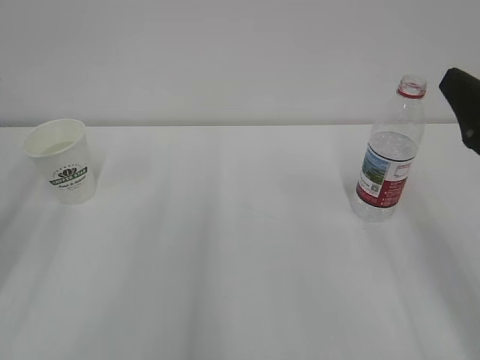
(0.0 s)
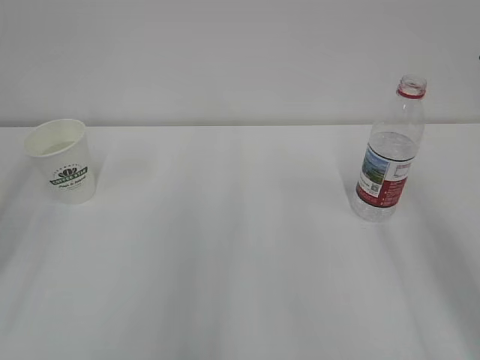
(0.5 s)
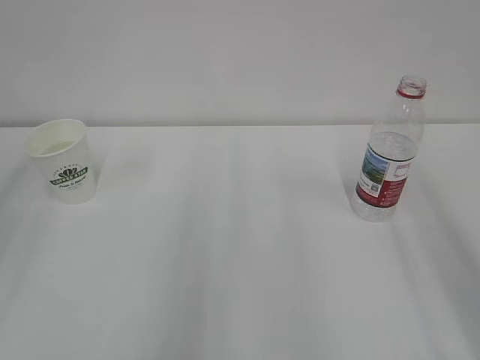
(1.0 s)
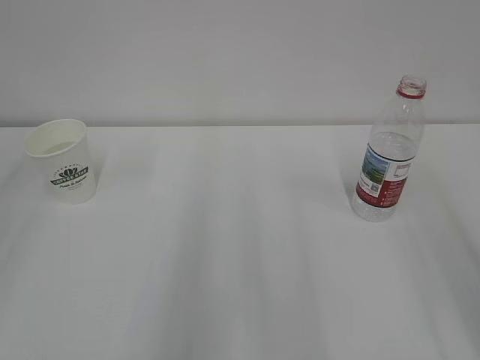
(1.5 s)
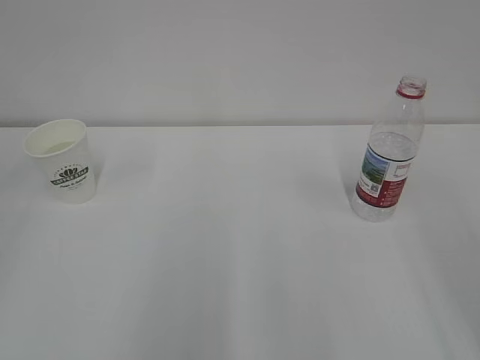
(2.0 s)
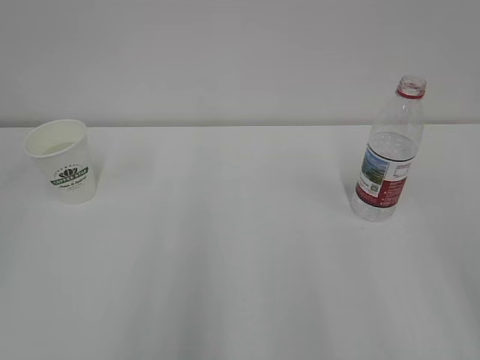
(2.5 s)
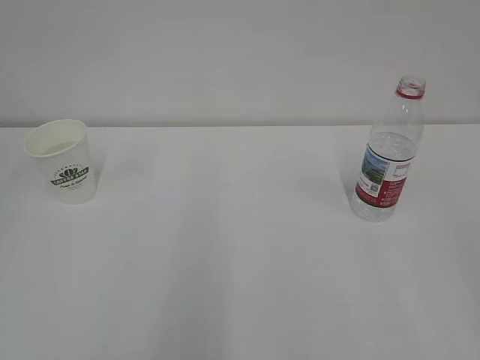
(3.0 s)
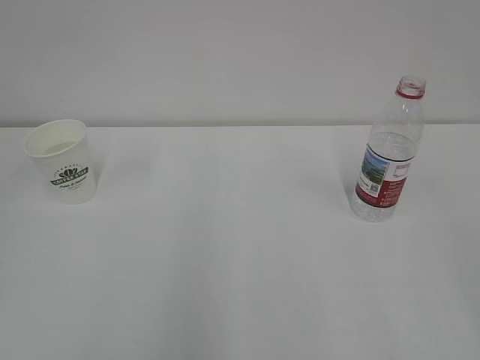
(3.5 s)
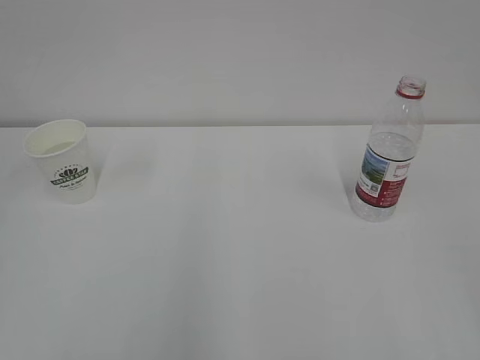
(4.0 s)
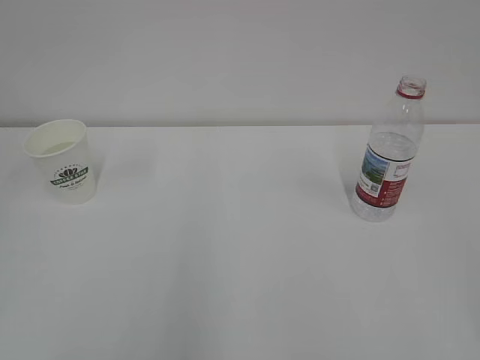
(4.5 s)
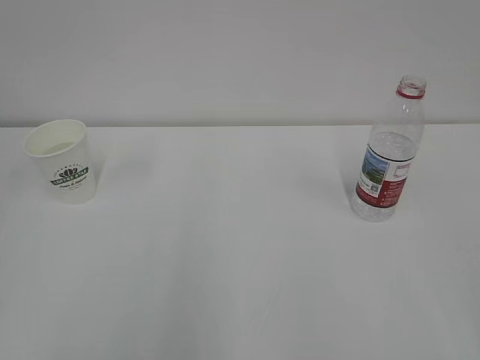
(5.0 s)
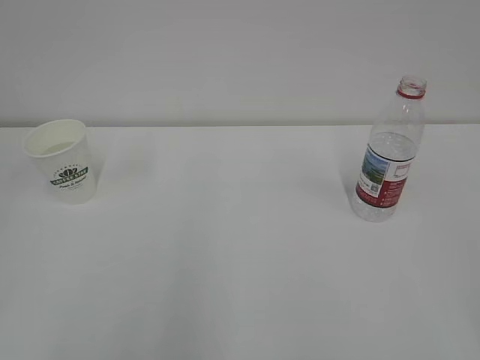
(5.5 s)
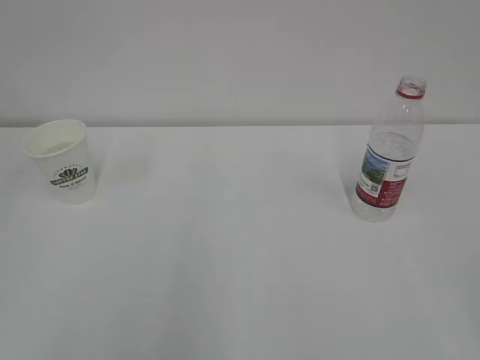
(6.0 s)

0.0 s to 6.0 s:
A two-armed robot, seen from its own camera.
0.0 to 2.0 s: The right gripper goes some 15 cm backward and upward.
